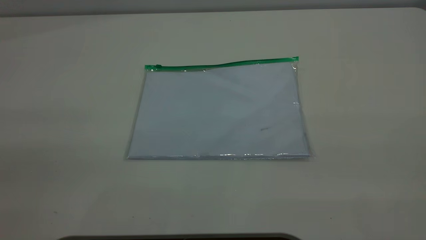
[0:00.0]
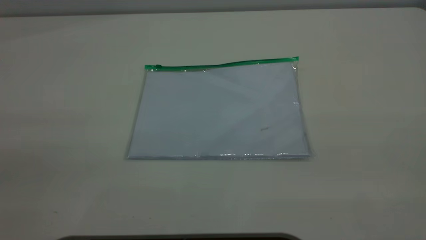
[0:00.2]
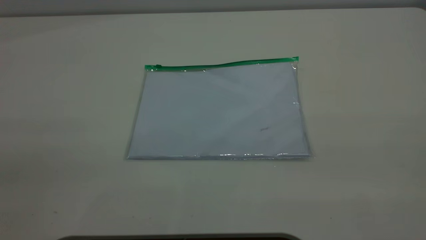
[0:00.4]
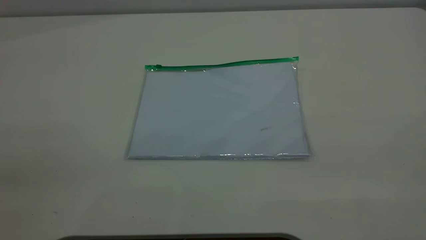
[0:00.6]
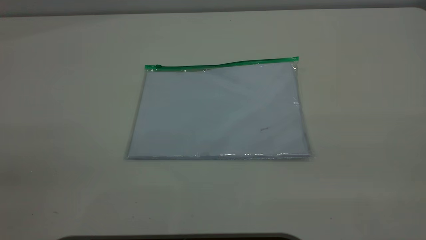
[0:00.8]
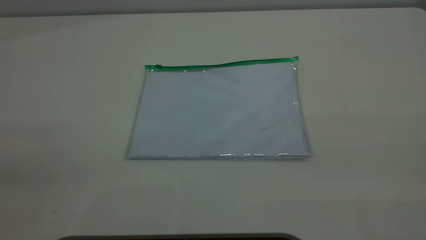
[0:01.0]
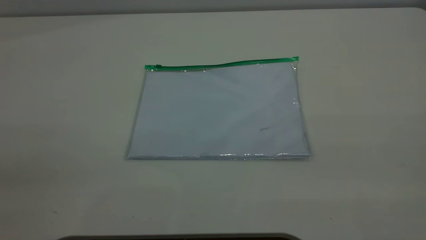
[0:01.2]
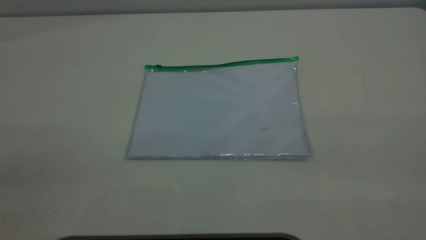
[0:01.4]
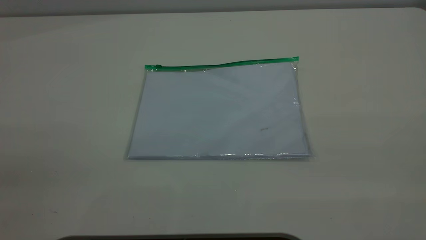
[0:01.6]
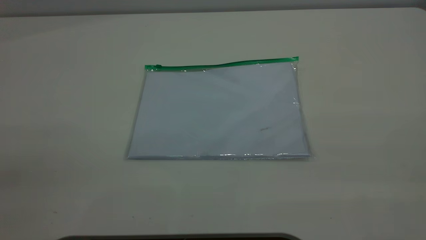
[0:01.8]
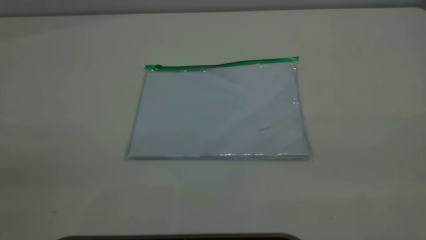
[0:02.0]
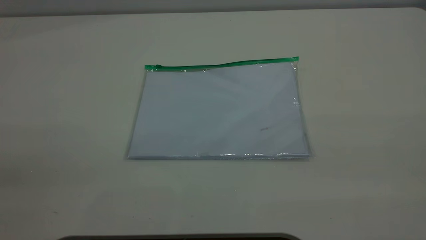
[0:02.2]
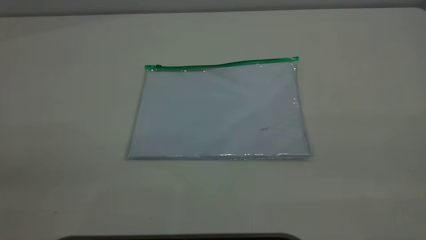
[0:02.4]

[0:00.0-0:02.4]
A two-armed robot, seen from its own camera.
0:01.2 to 0:02.4: Both grippers stay about where they are.

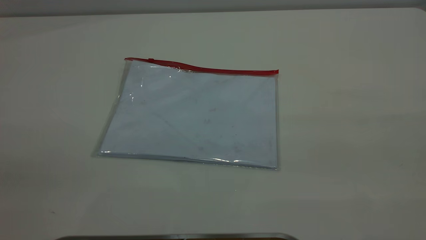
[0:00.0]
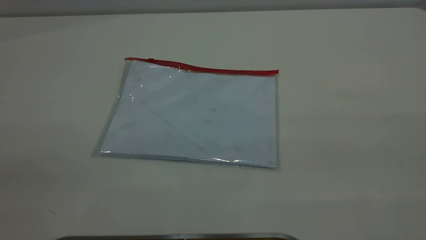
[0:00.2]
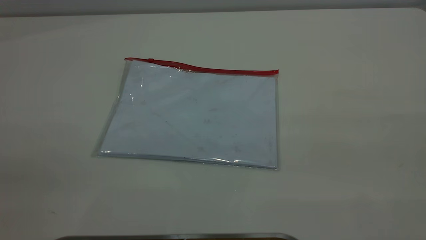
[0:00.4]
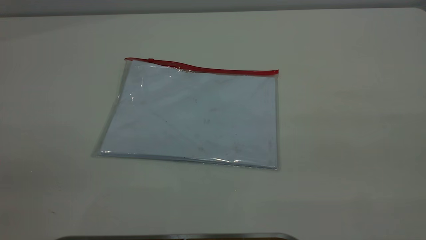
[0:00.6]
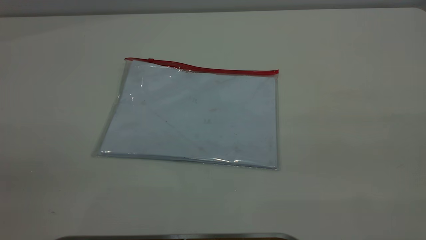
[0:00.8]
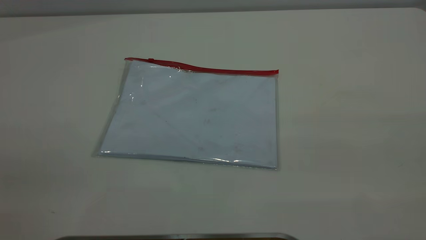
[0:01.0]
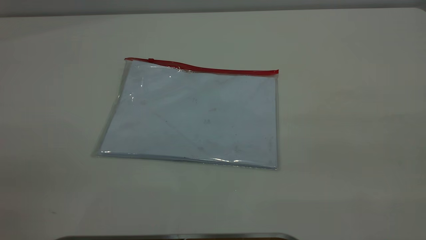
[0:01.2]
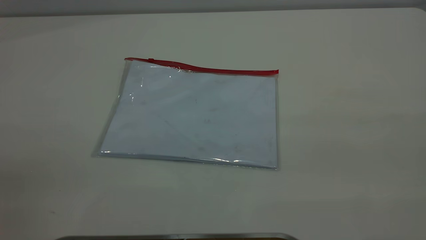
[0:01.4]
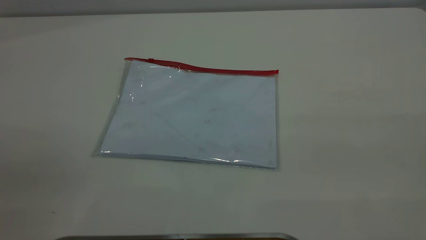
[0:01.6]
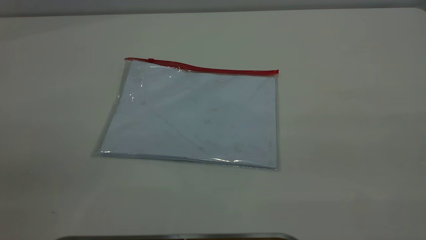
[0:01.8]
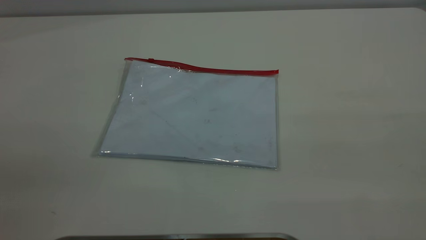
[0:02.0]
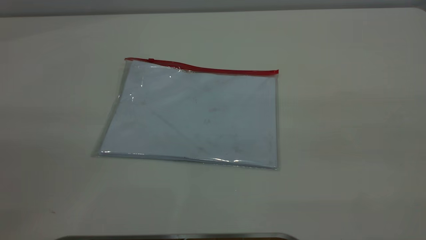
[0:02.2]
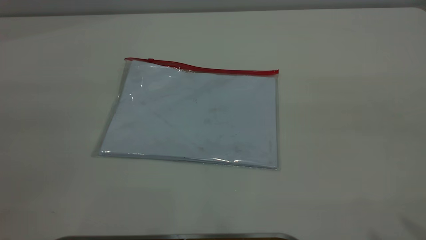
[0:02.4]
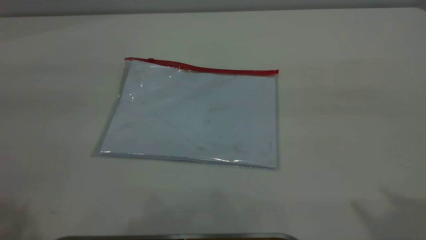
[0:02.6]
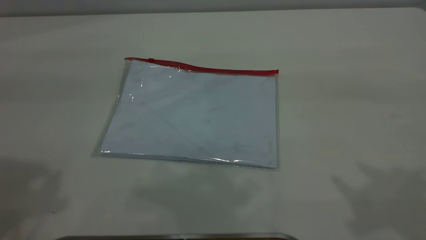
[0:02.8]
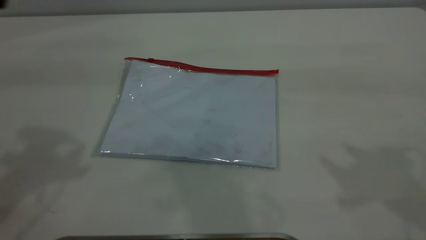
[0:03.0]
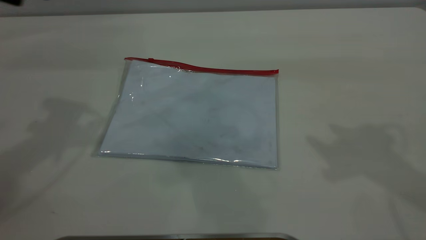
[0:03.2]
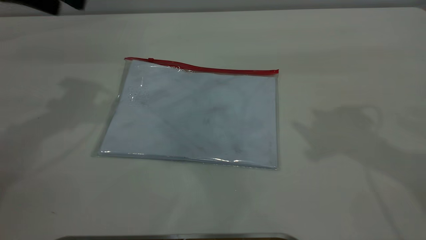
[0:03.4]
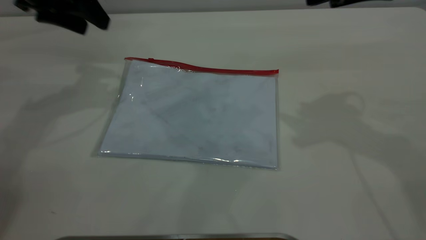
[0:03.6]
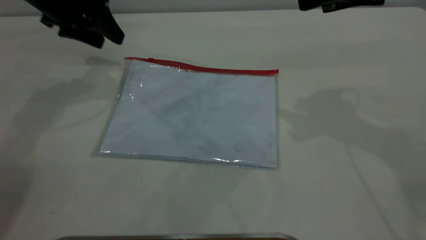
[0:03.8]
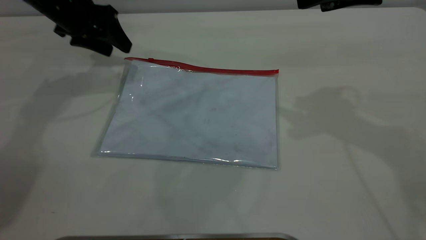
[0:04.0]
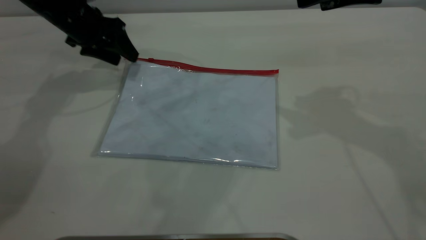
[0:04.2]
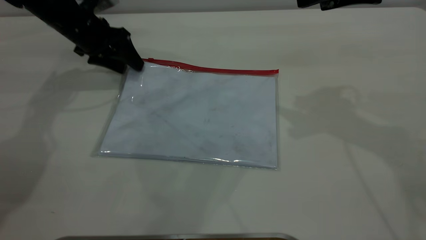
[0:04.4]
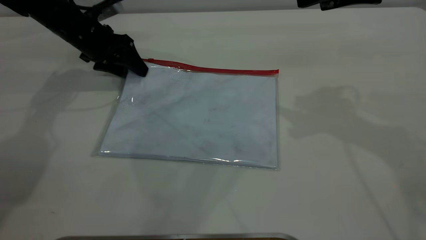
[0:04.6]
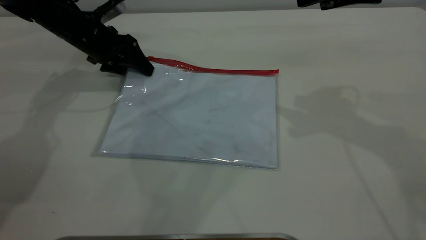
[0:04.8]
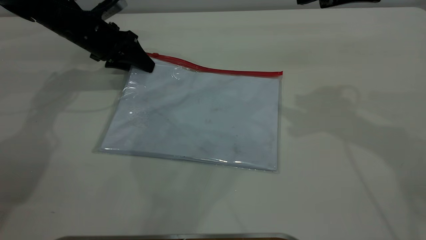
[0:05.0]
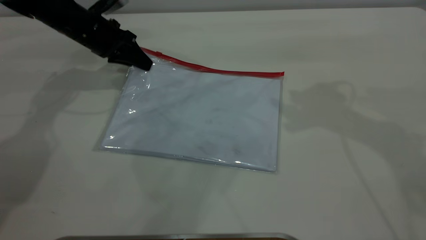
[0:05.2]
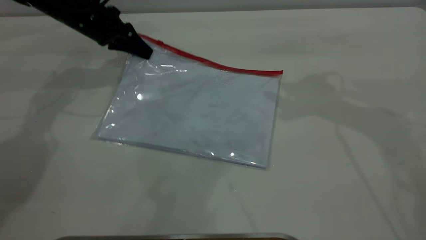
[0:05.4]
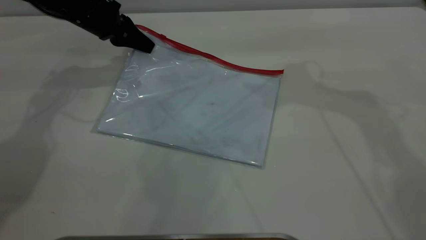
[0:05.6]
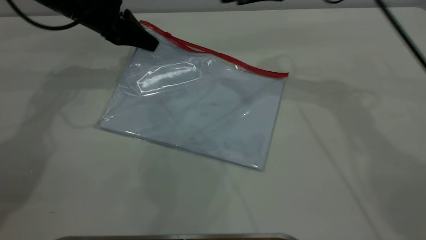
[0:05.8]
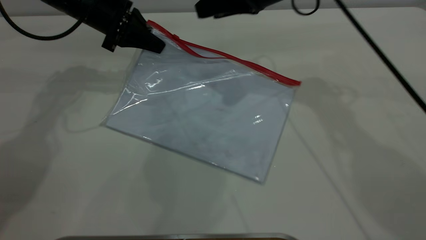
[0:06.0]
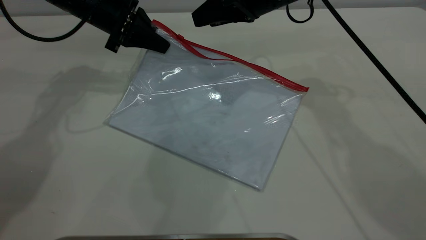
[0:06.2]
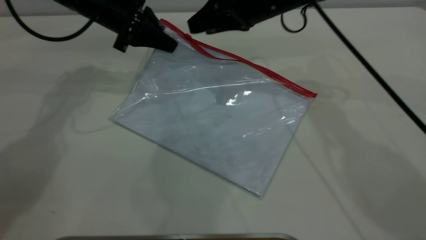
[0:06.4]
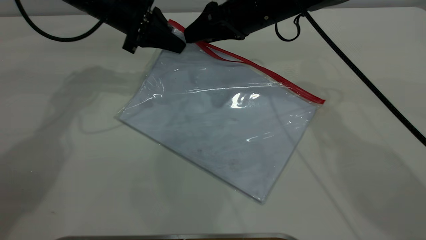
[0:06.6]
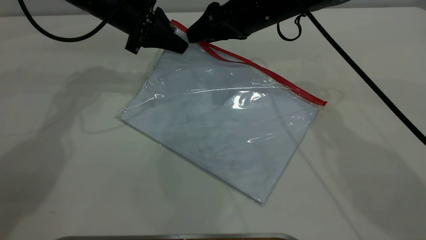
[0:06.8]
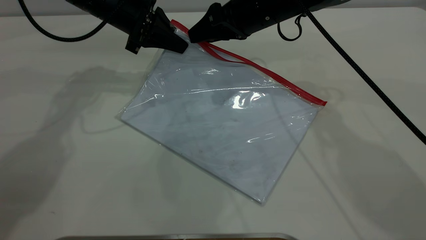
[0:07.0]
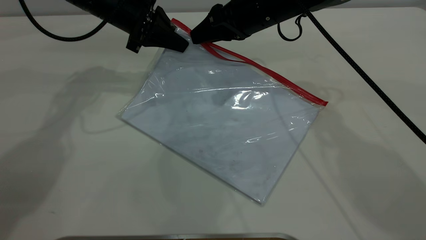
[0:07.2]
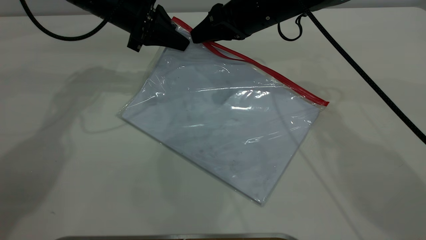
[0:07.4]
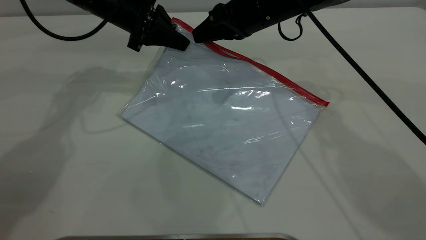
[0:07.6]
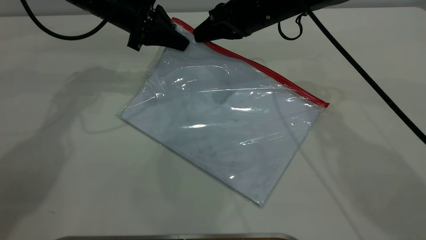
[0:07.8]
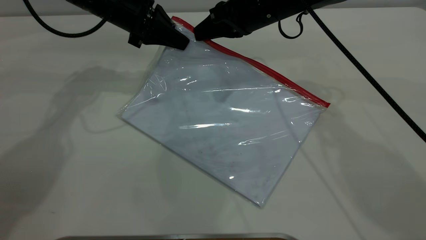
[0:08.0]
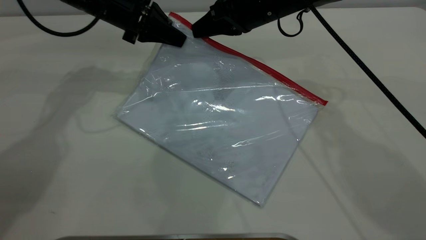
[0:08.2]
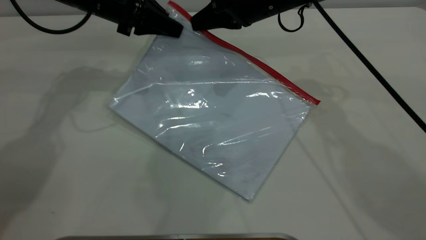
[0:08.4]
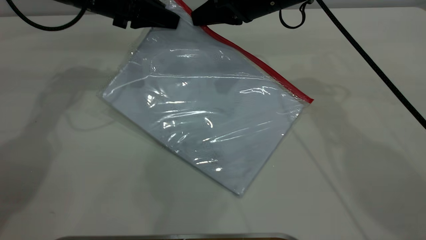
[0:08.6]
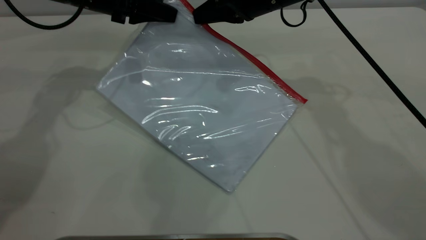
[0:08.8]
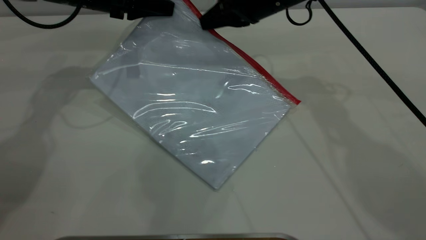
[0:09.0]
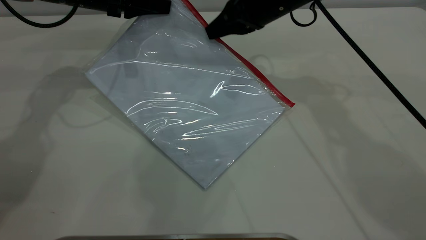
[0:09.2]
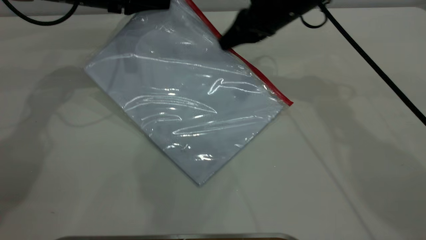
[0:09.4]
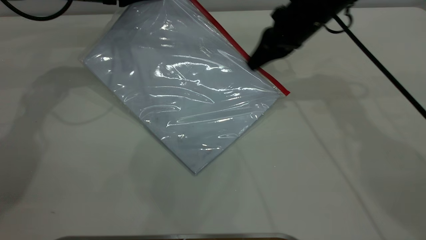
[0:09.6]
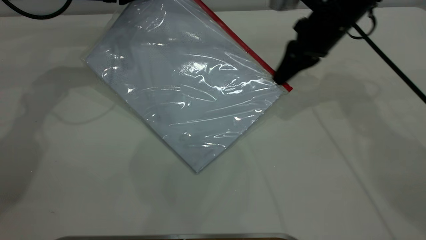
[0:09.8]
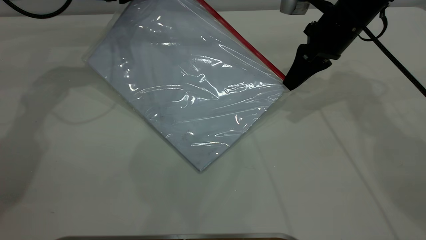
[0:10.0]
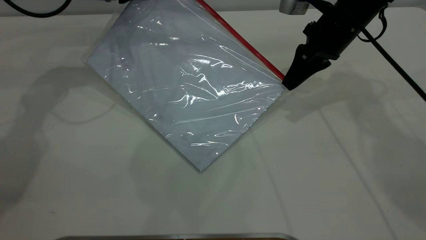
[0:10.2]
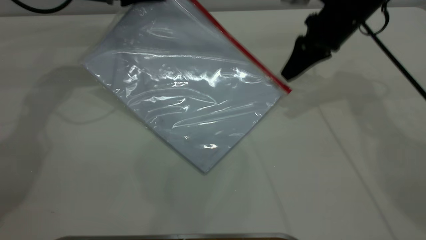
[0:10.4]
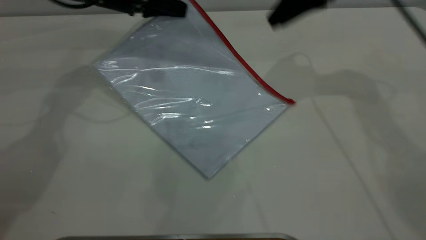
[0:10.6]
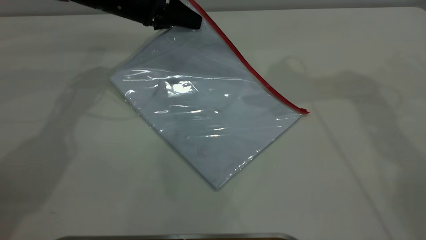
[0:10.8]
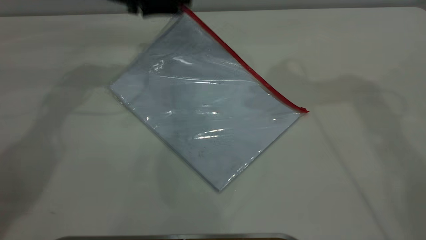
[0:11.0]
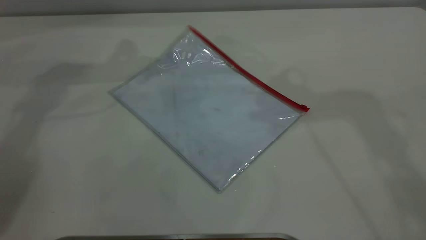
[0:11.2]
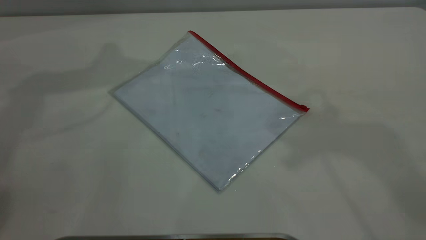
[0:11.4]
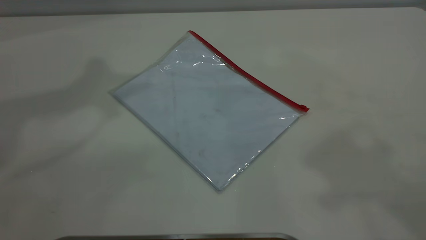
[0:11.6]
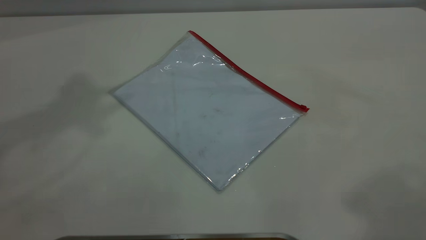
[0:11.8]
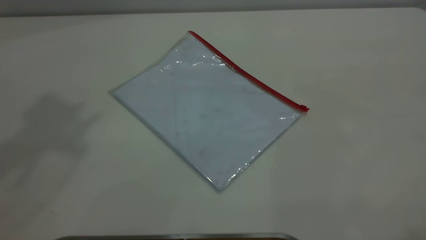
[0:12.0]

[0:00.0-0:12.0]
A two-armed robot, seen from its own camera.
Step, 0:00.0 to 0:05.4: Pick up the transparent plastic bag with the left gripper.
Step, 0:05.6 to 0:10.2: Pulling up the zipper on the transparent plastic bag with the right gripper to close it.
Step, 0:10.6 to 0:11.0: Place the transparent plastic bag.
0:00.0 to 0:01.6: The two grippers keep their place.
0:03.0 to 0:04.4: The right gripper shifts some 15 cm forward and downward. The left gripper moves downward and forward, roughly 30 cm.
0:04.4 to 0:06.0: The left gripper moves approximately 5 cm, and closes; the right gripper travels to the left, forward and downward by some 15 cm.
0:06.0 to 0:07.6: The right gripper closes up.
0:09.0 to 0:10.4: The right gripper heads to the right, covering about 10 cm, and opens up.
0:10.4 to 0:12.0: The right gripper is displaced backward and upward by approximately 50 cm. The left gripper moves upward and backward, some 50 cm, and opens.

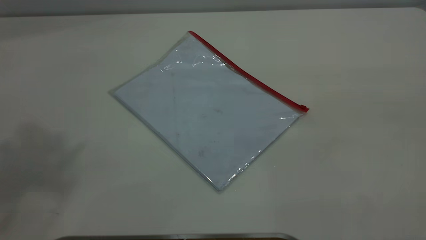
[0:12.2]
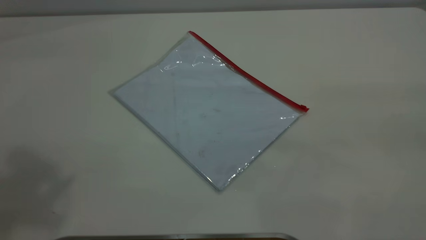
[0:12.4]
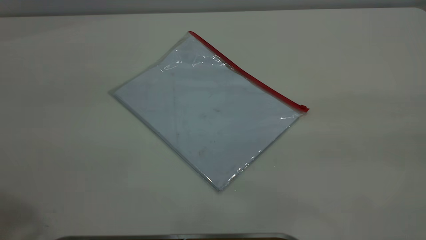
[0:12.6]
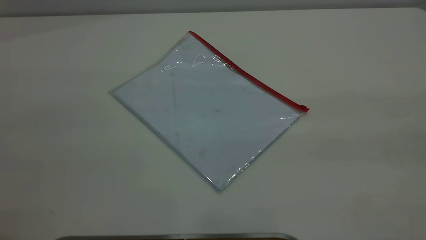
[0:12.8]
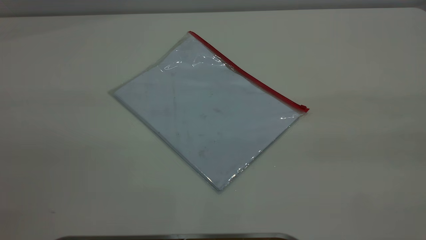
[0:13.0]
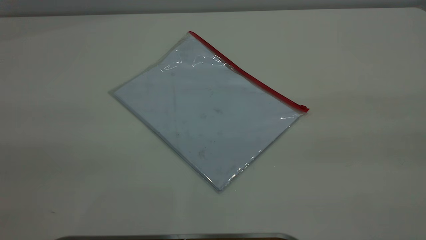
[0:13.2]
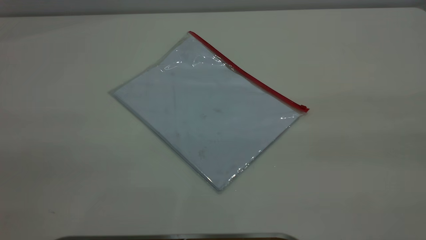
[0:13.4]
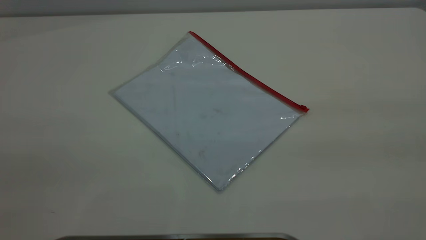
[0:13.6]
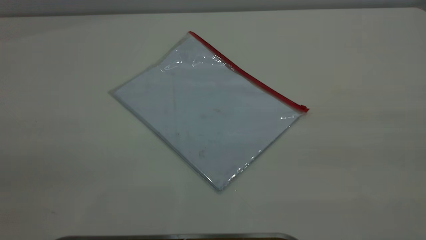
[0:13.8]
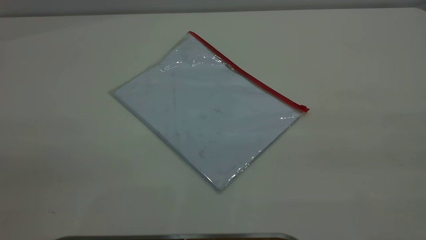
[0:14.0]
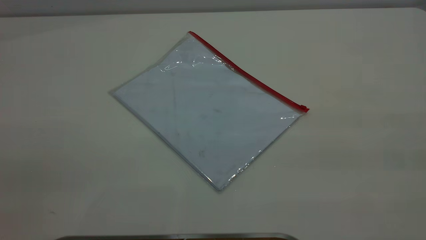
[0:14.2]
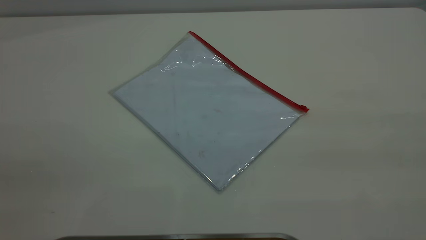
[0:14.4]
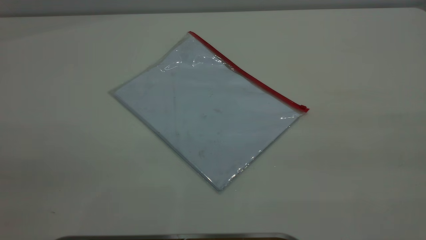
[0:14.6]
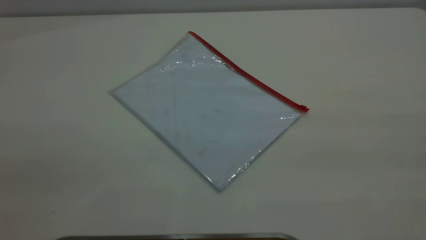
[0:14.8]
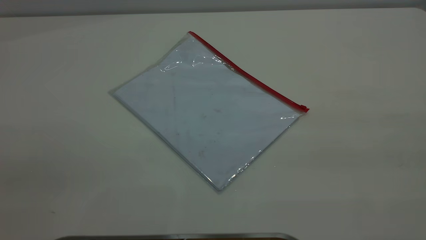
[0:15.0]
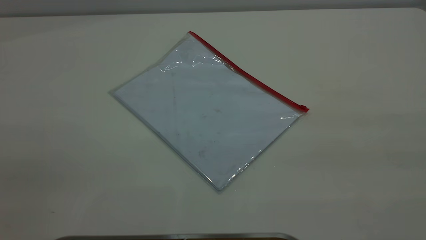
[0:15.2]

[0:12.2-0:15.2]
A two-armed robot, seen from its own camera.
0:13.8 to 0:15.2: Both grippers stay about where they are.
